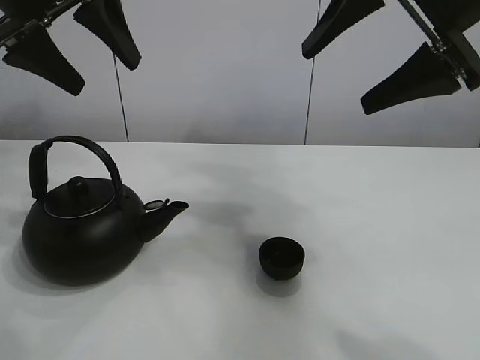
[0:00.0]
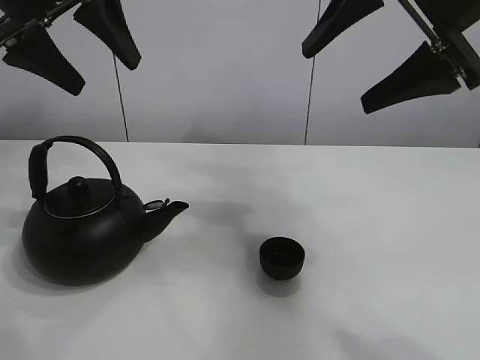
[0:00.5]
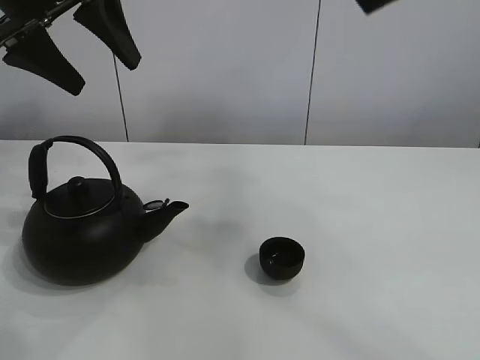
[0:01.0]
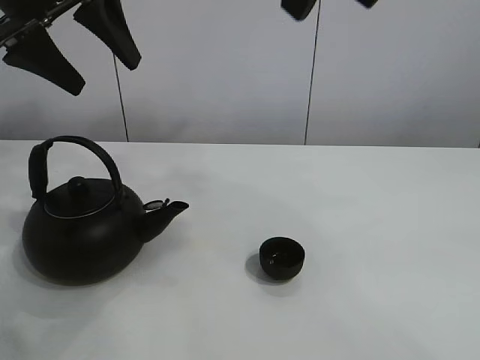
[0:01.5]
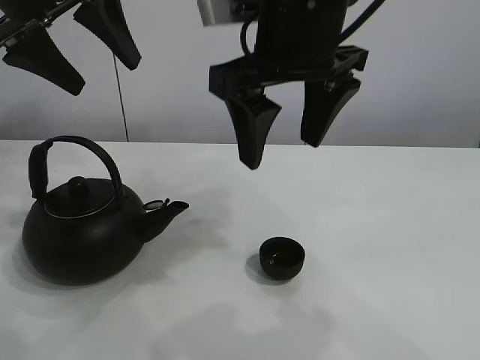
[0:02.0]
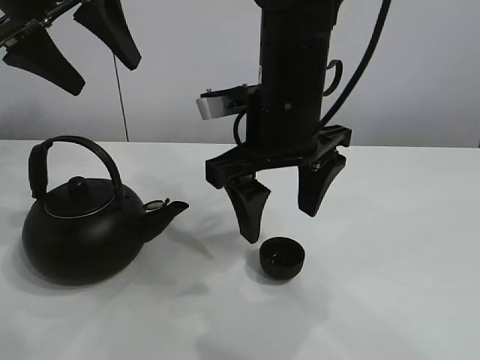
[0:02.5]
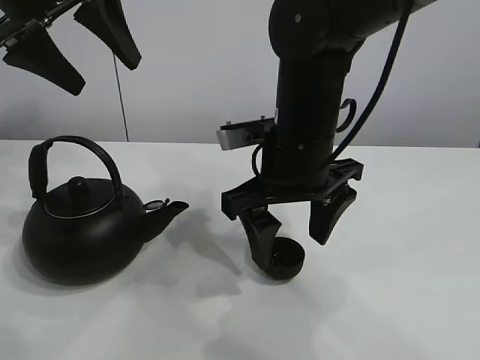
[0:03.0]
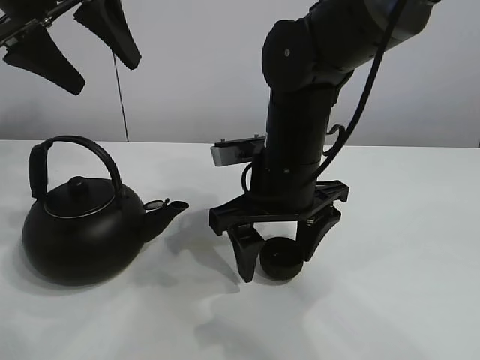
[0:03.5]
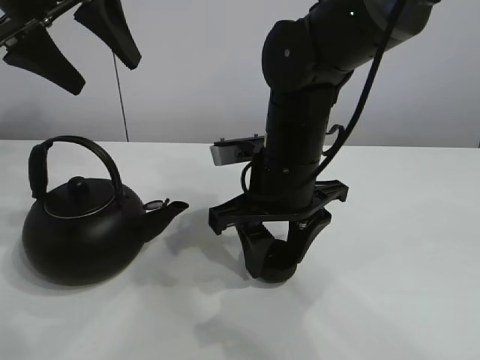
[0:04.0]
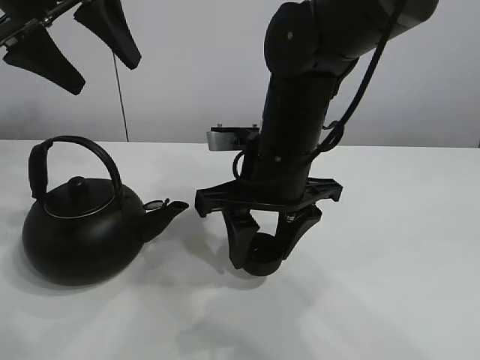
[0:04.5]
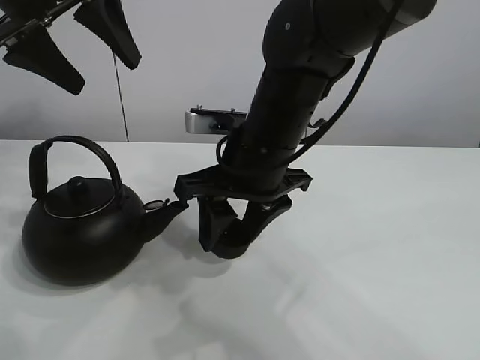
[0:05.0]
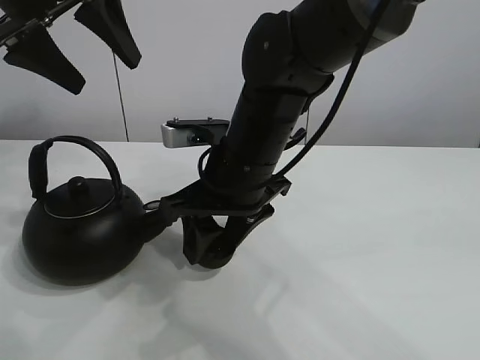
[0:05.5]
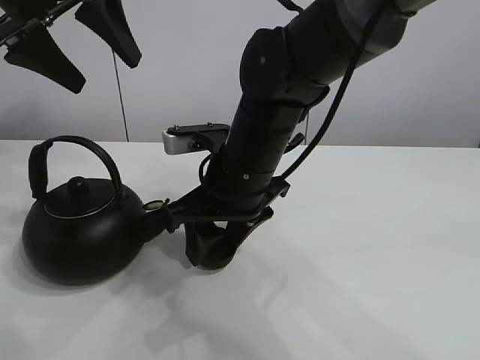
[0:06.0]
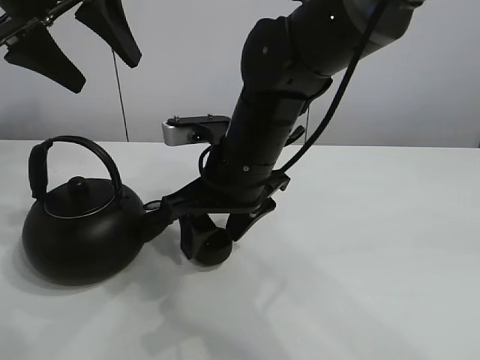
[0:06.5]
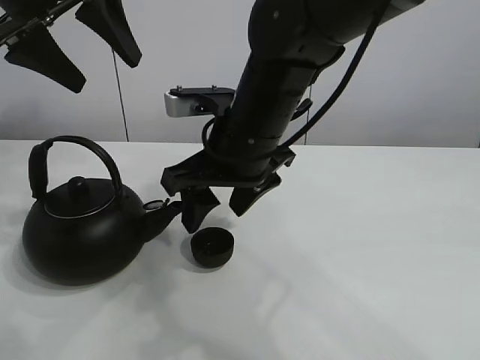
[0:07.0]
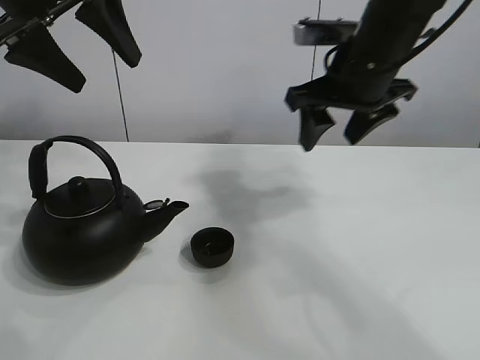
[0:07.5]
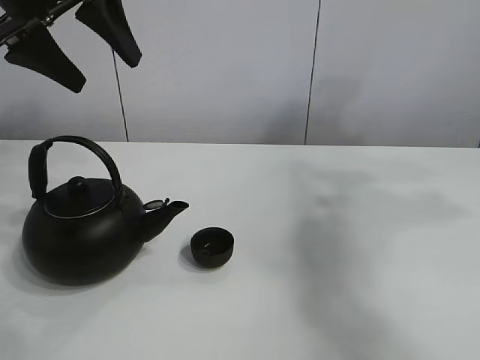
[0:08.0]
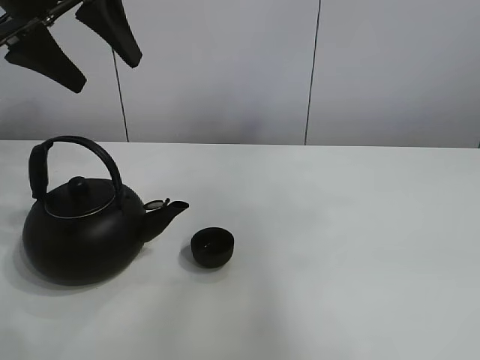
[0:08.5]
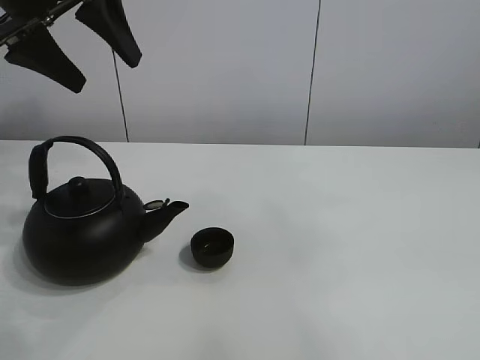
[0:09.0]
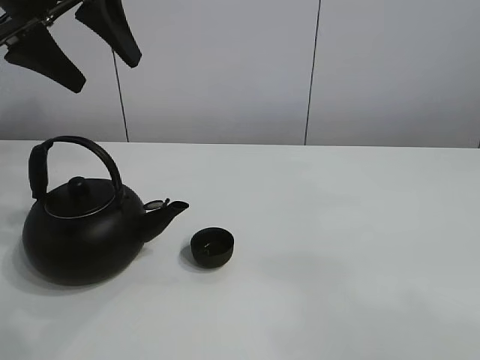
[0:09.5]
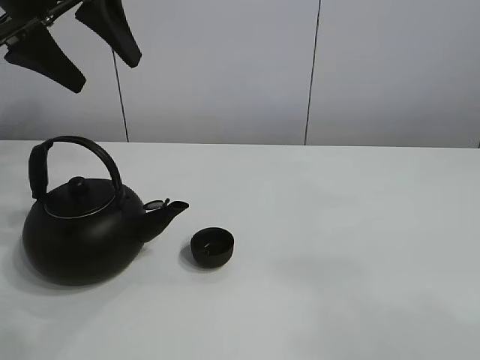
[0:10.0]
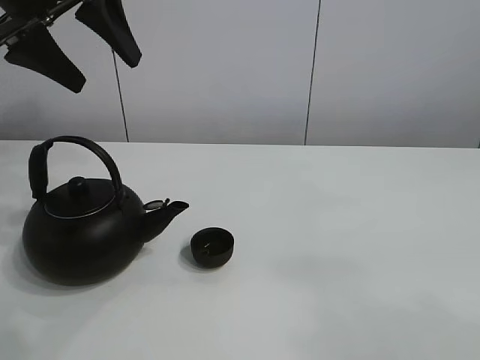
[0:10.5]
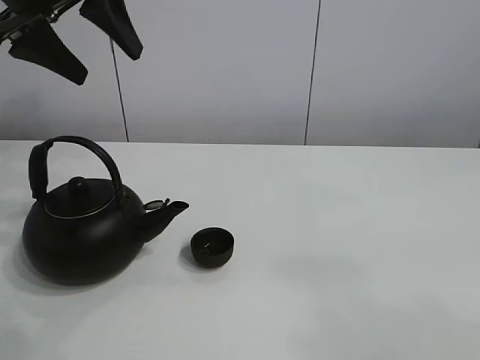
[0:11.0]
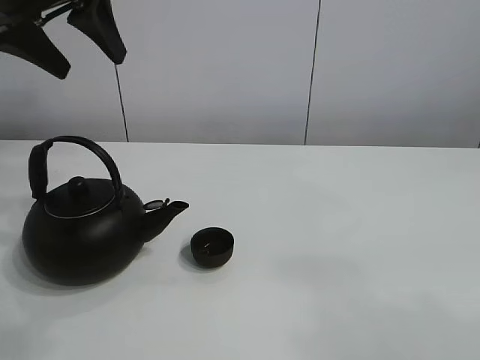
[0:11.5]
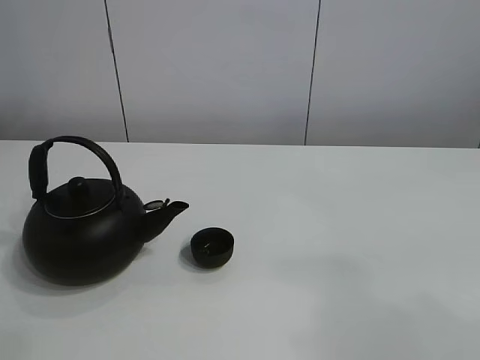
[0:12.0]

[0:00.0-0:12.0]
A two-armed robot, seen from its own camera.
Task of the whole recording: pour tea into the teacup.
Step, 0.0 to 4.0 s: Pick up the teacup with the right gripper.
Step, 4.5 to 6.5 s: Place the teacup in the center of view with the right gripper.
2.0 to 4.0 s: The right gripper heads downward, covering approximately 15 cm, and closes its fingers.
4.0 to 6.0 s: The grippers move only a little.
6.0 to 8.0 s: The right gripper is displaced to the right and upward by approximately 40 cm, and opens.
8.0 to 10.0 s: The right gripper travels backward by some 35 cm.
10.0 to 12.0 s: The left gripper moves upward and backward, roughly 15 cm.

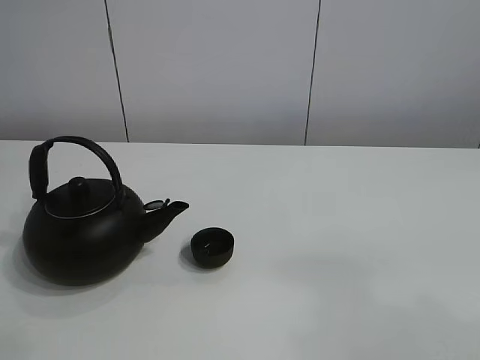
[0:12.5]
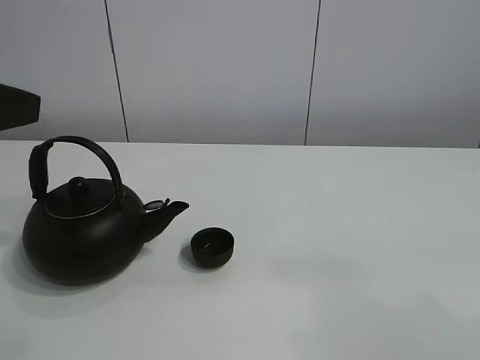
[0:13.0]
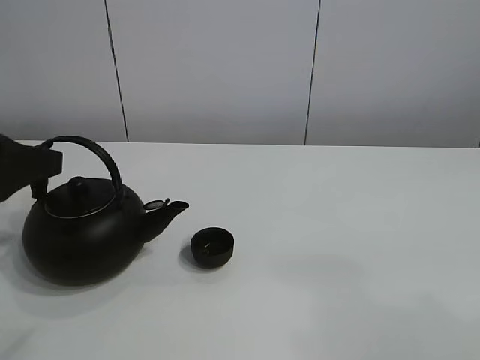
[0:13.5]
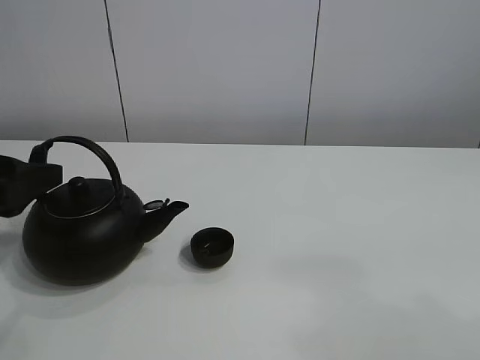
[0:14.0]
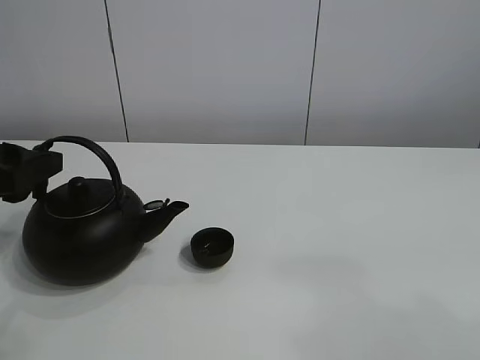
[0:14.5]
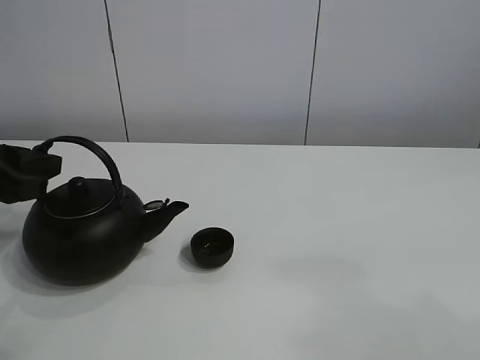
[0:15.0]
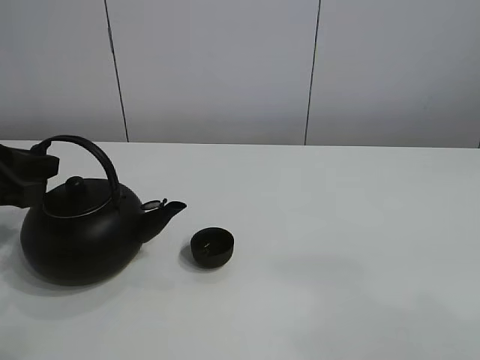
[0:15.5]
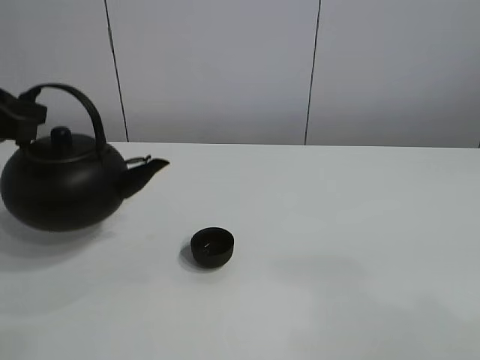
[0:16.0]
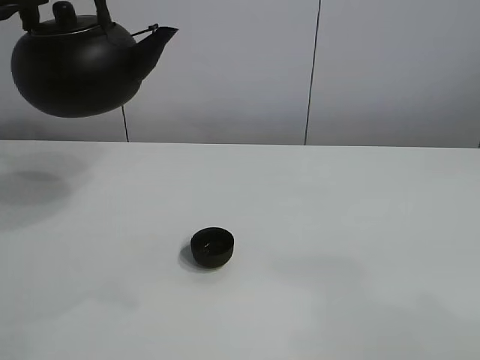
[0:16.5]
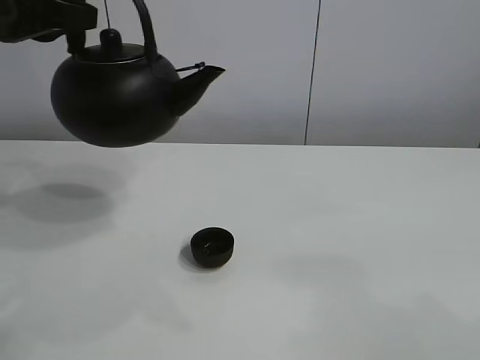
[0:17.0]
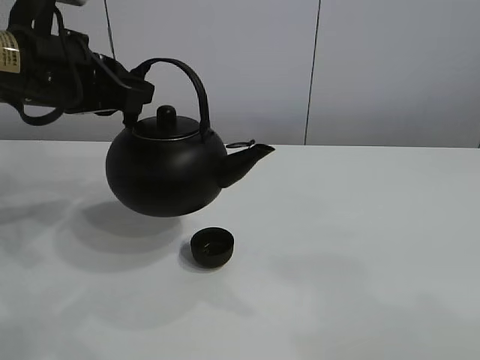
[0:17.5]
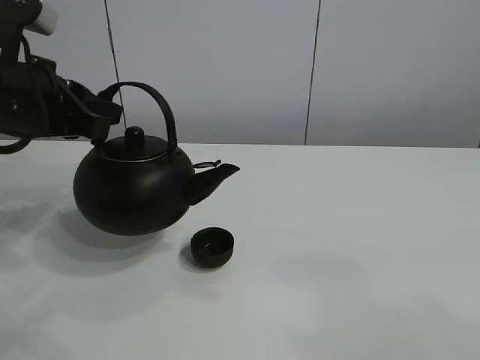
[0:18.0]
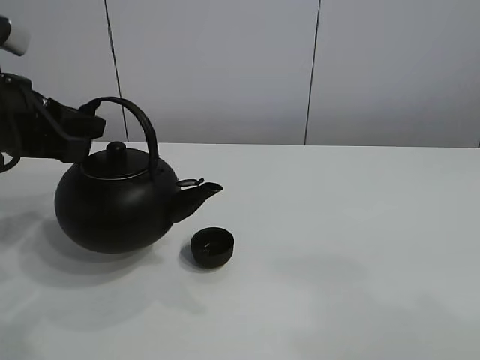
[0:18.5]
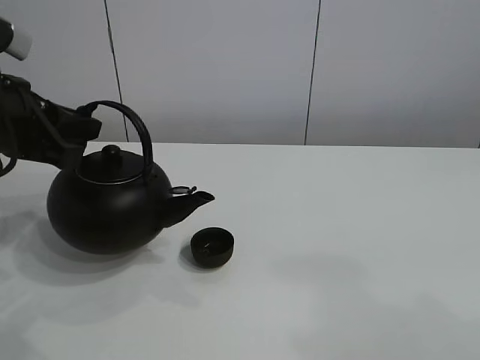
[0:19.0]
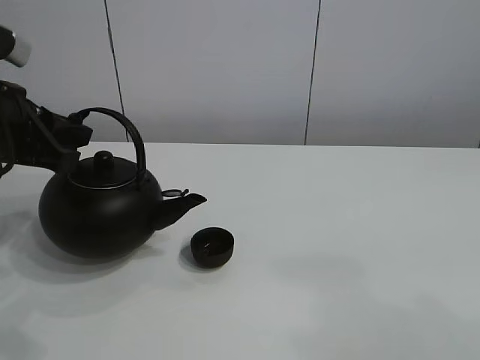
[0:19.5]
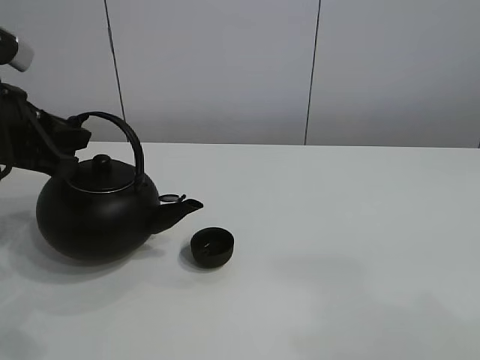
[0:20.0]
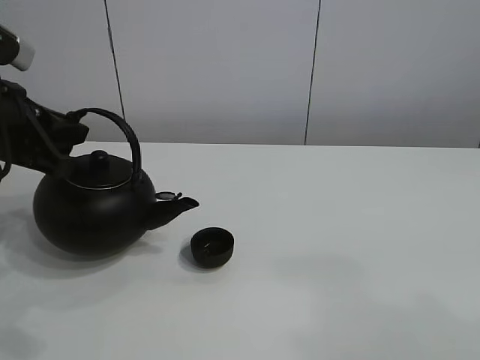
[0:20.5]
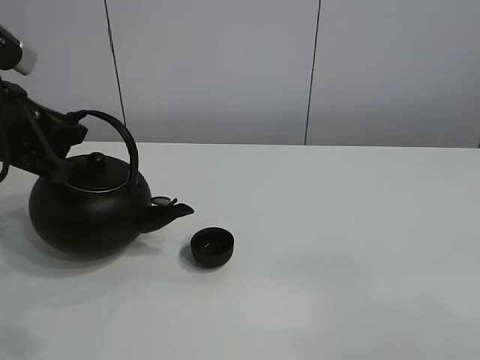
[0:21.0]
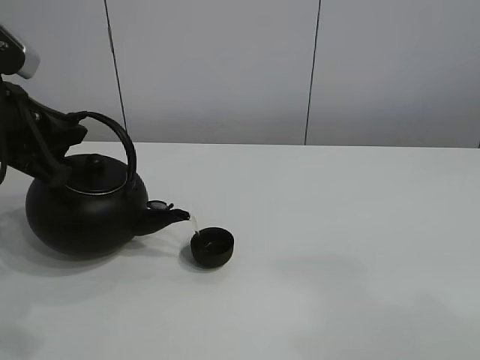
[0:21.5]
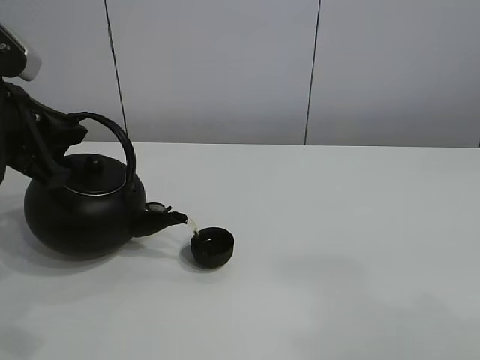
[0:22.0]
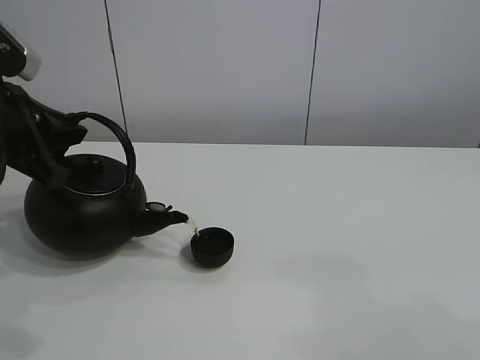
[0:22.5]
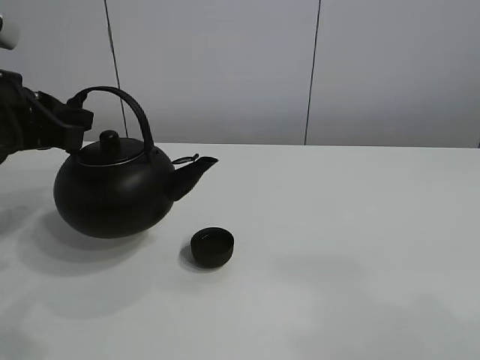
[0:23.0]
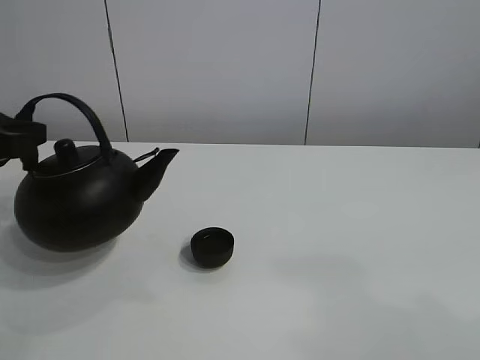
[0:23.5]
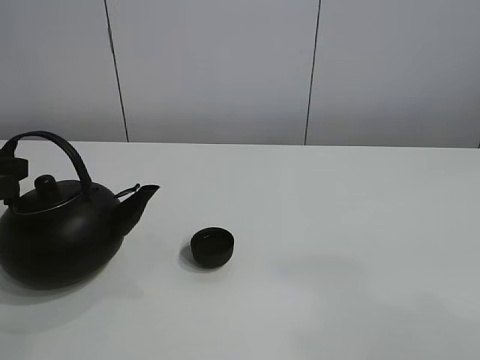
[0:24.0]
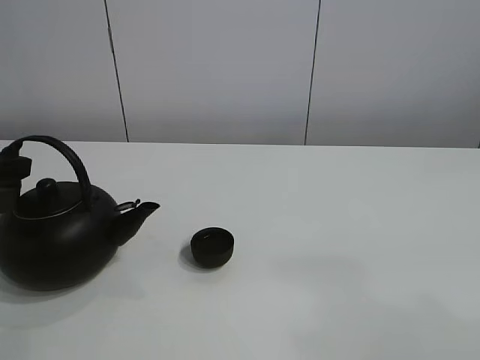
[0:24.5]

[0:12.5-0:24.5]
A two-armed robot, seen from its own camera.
Task of the whole recording: pour tea into the teacup.
Step, 12.5 to 15.5 s: Pick up the teapot with the left gripper.
Step, 16.0 to 22.5 s: Pour tea into the teacup with the left gripper.
12.5 to 14.5 s: The left gripper goes approximately 20 cm downward and forward.
14.5 to 16.5 s: The left gripper moves upward and forward, some 15 cm, and closes.
16.5 to 18.5 s: The left gripper goes about 10 cm downward.
18.5 to 22.5 s: The grippers make only small movements.
22.5 to 24.5 s: The left gripper is displaced to the left by approximately 5 cm.

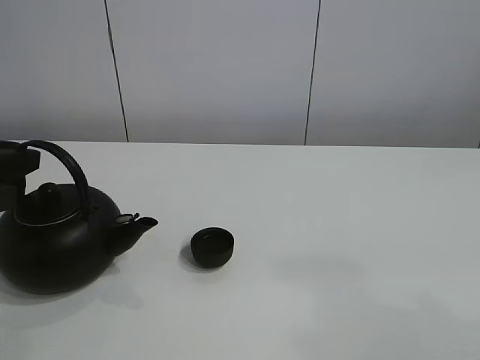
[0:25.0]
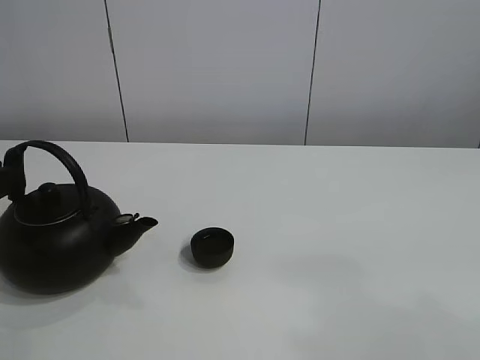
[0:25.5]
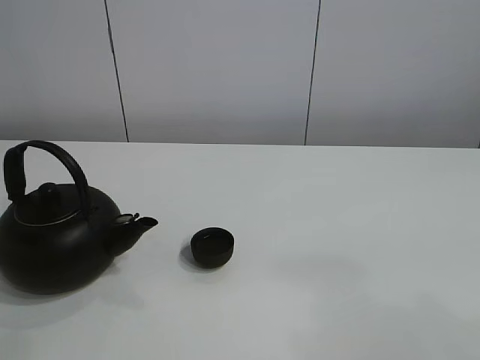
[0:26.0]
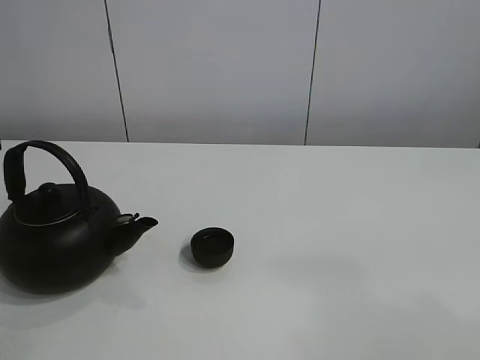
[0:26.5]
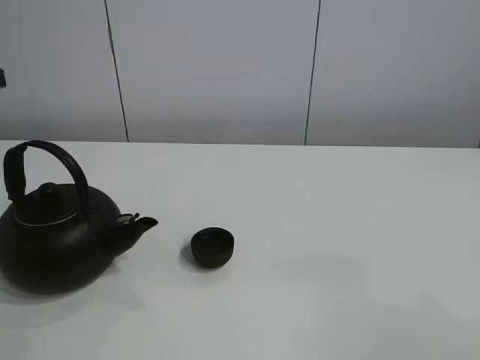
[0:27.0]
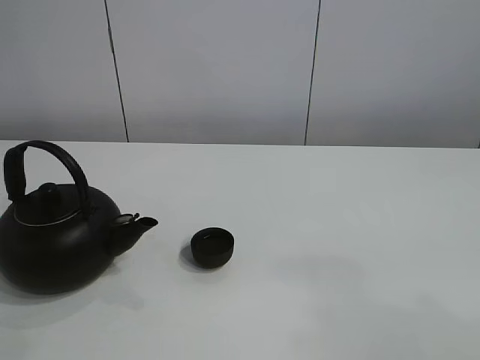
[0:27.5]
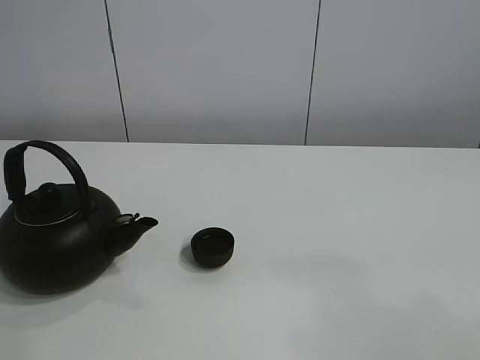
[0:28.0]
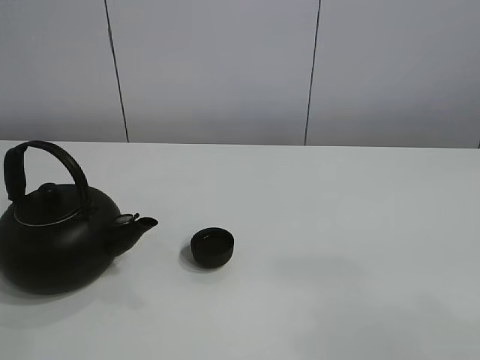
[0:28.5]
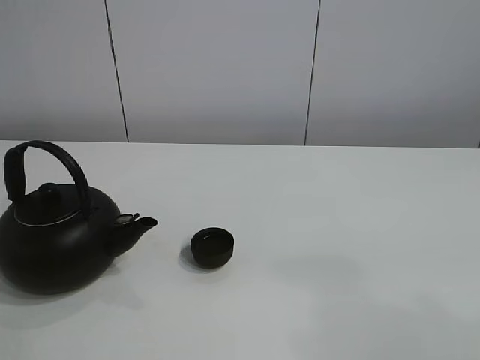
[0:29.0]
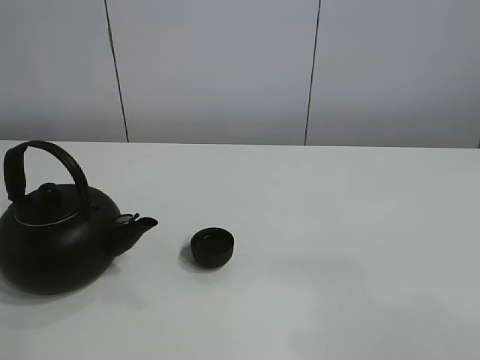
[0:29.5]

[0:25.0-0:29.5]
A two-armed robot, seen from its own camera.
Task of the whole recording: pour tea into the teacup.
25.0 to 27.0 s: The left gripper moves upward, about 10 cm.
